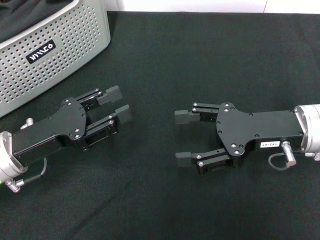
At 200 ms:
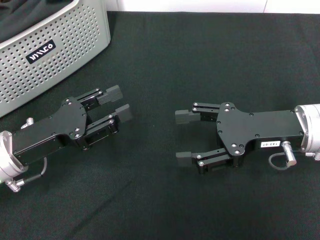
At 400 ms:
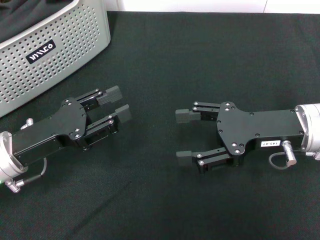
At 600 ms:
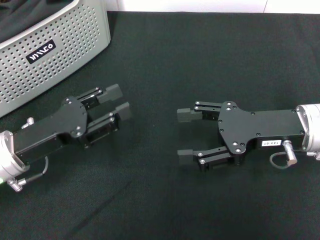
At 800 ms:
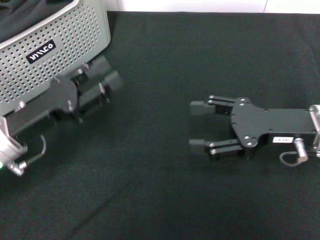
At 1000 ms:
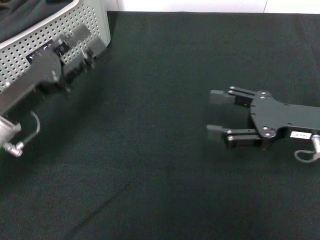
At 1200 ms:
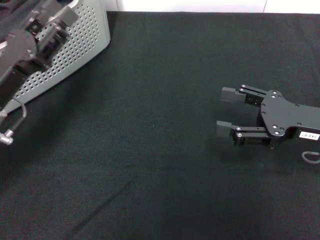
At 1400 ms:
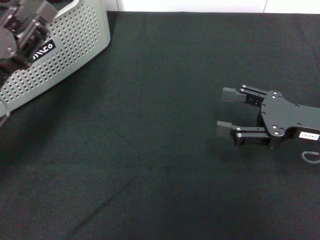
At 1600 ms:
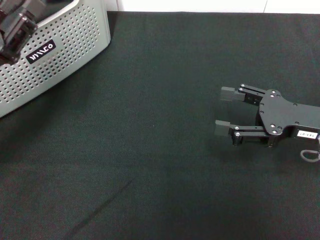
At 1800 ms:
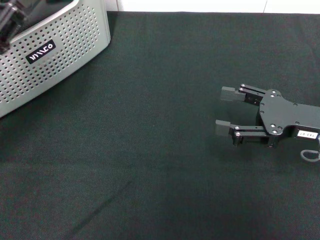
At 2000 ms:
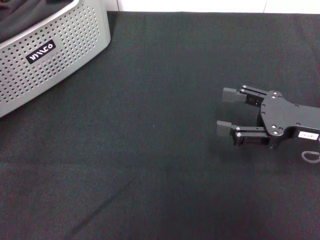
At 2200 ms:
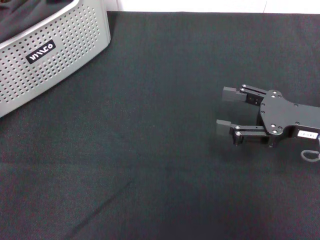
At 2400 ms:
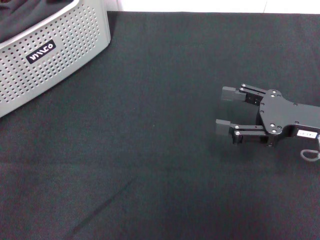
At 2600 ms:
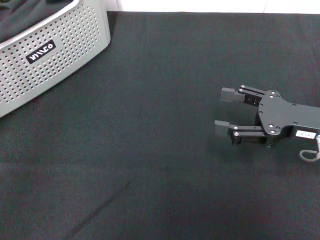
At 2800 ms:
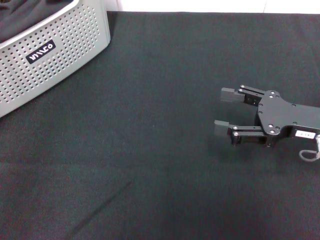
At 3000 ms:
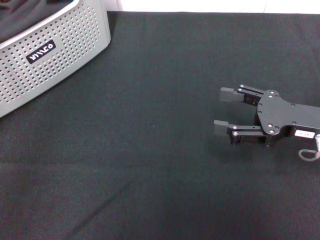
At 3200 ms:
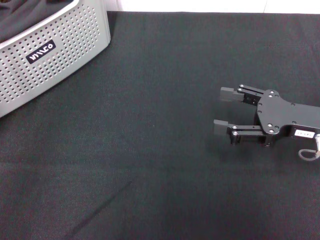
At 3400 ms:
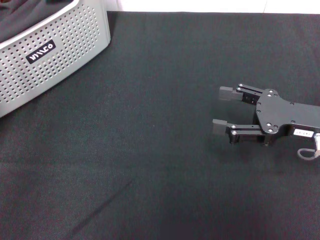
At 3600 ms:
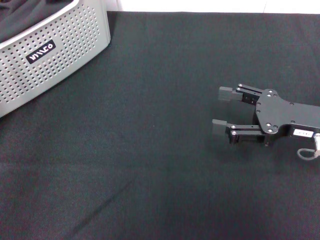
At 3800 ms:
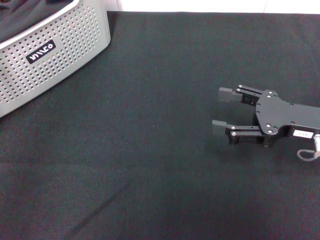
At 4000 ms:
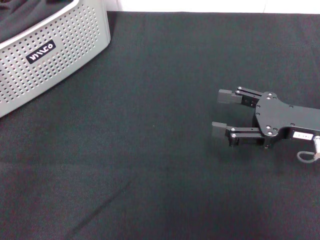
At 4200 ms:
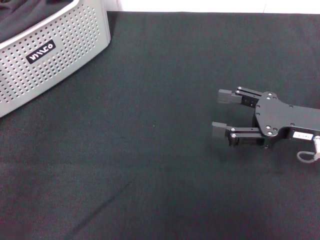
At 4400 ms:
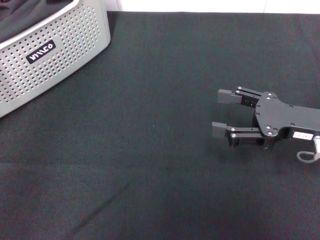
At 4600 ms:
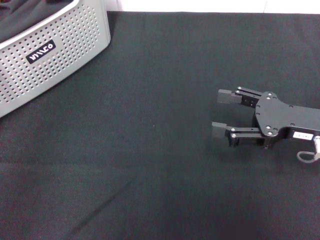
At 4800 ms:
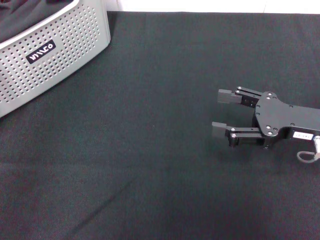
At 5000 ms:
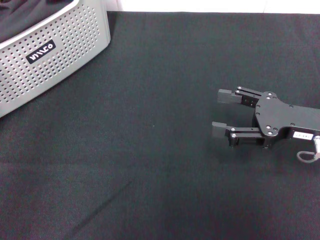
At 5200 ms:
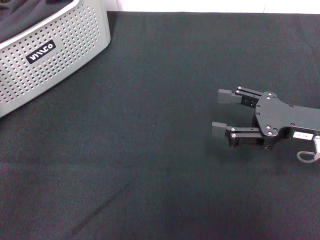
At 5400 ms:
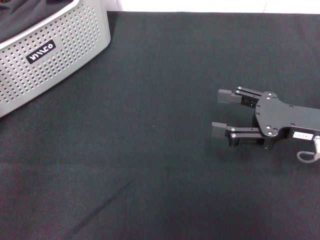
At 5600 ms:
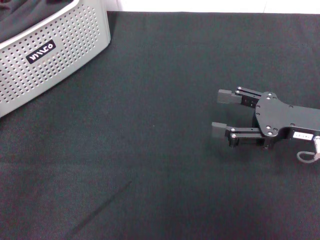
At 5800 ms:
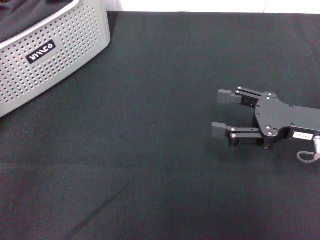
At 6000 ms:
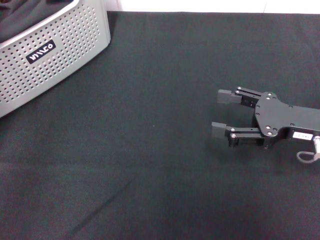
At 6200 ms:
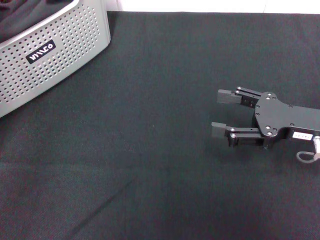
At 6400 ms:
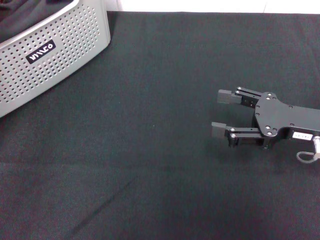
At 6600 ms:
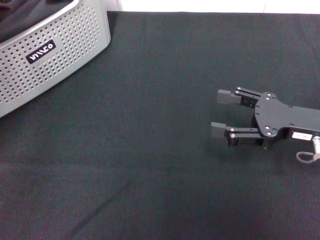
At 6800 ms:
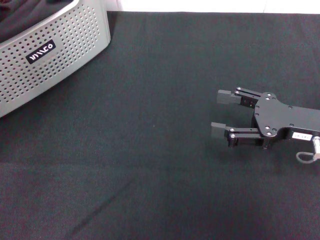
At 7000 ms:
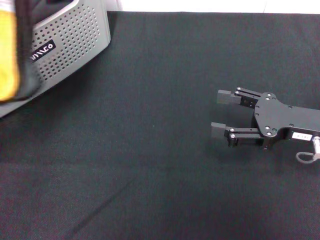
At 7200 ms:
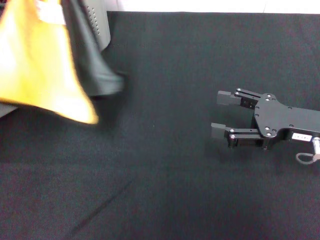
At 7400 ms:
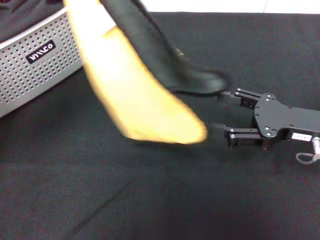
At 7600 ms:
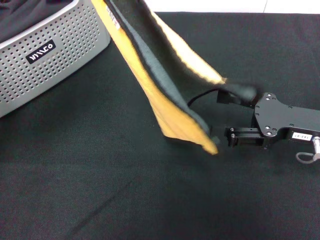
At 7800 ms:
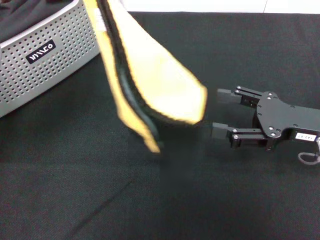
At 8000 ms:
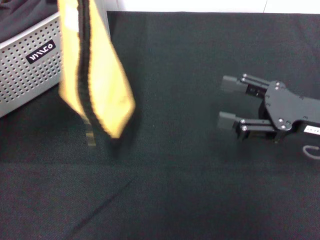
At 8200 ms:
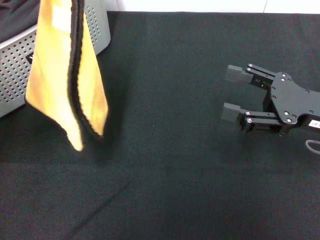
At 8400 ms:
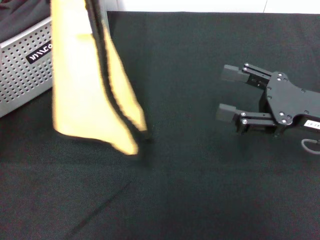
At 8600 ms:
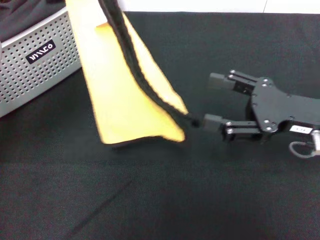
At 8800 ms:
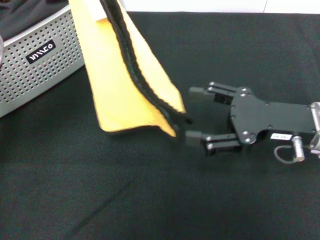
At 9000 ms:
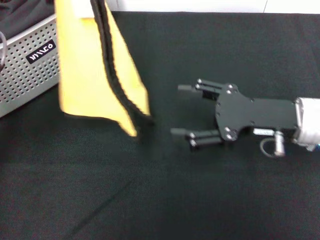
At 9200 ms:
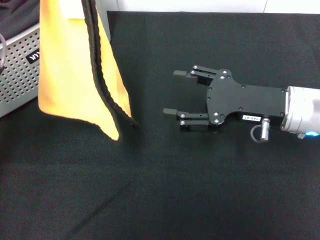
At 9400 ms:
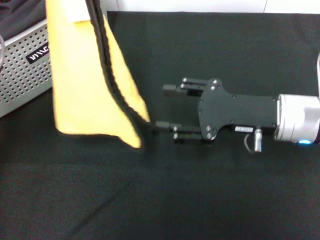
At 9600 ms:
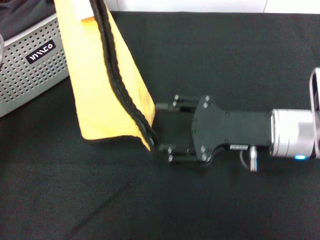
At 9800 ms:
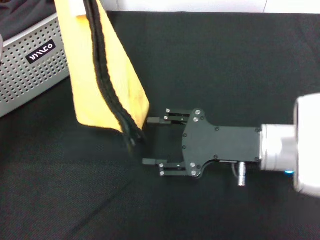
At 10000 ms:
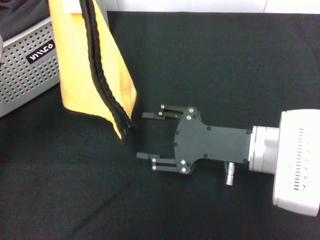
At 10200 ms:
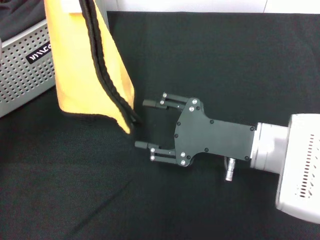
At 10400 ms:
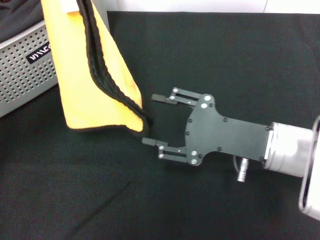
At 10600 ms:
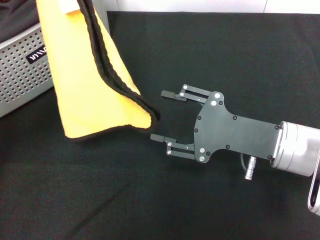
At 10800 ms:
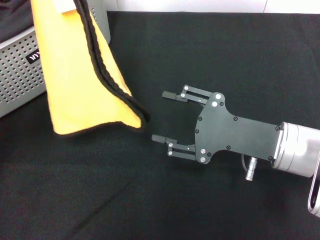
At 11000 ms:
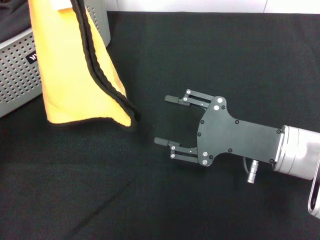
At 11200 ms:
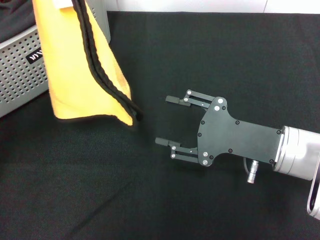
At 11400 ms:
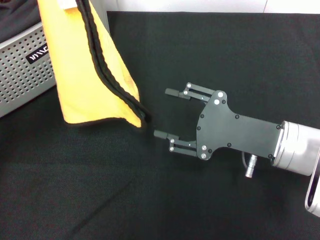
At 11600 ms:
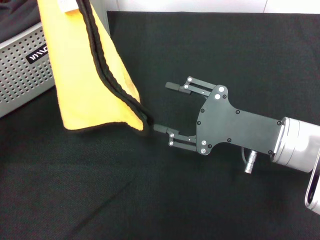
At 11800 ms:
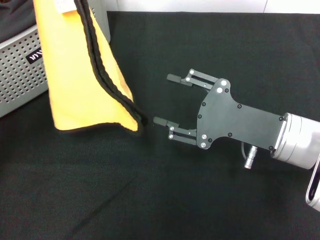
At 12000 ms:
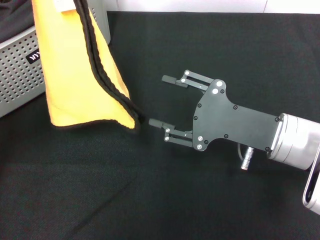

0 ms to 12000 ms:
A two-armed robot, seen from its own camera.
Task of the whole recording: pick up the towel from the storage box and lay it flat on the black tablecloth.
Step, 0 ms to 5400 ms: Pick up a towel with the left gripper.
0 ms to 1600 ms: The right gripper shifts some 5 cm to the right; the left gripper moves approximately 5 cm.
1600 ms to 3000 ms: The left gripper moves to the left, approximately 5 cm.
3000 ms to 4400 ms: The grippers make only small movements.
4400 ms to 6000 ms: The left gripper closes its fingers.
6000 ms to 7600 ms: The left gripper goes approximately 15 cm to the right, upward and forward.
7600 ms to 9000 ms: The right gripper goes approximately 5 cm to the left.
9000 ms to 10400 ms: The right gripper moves some 5 cm.
10400 ms to 12000 ms: The grippers make only small movements.

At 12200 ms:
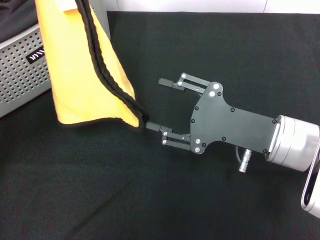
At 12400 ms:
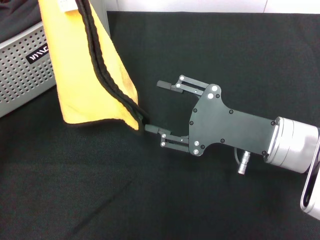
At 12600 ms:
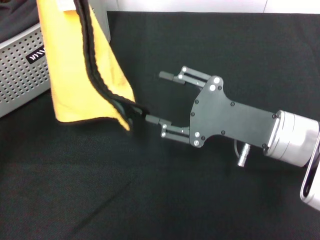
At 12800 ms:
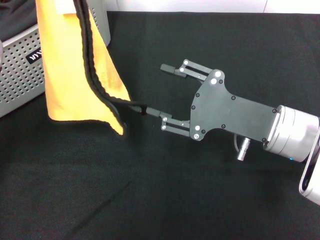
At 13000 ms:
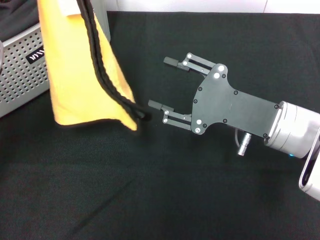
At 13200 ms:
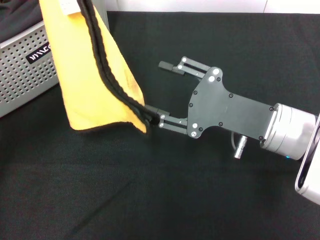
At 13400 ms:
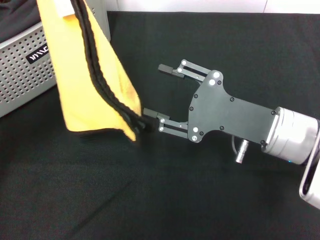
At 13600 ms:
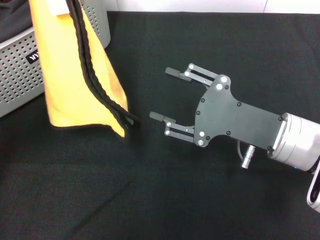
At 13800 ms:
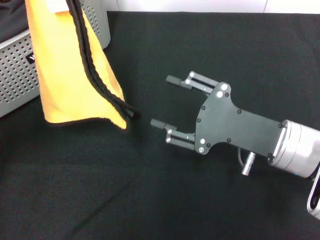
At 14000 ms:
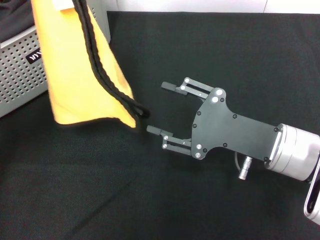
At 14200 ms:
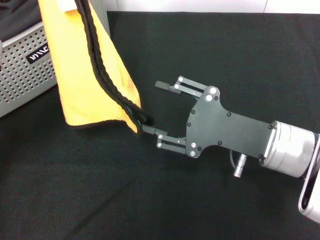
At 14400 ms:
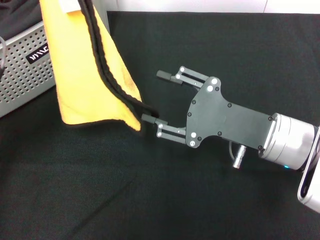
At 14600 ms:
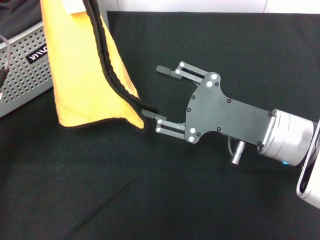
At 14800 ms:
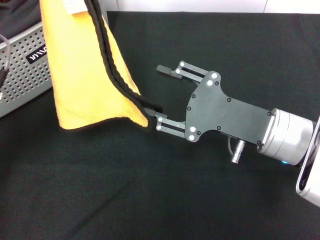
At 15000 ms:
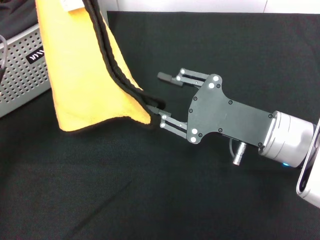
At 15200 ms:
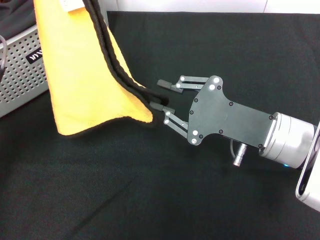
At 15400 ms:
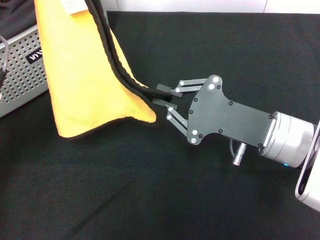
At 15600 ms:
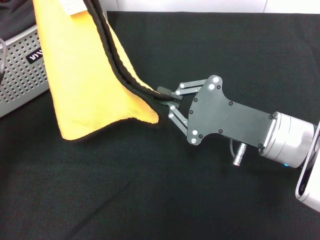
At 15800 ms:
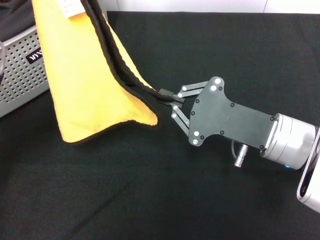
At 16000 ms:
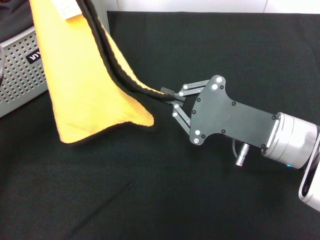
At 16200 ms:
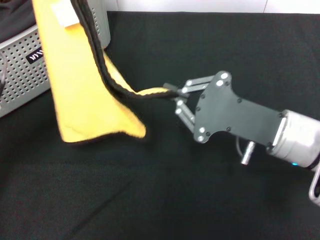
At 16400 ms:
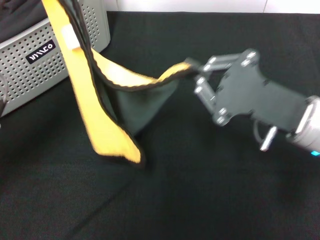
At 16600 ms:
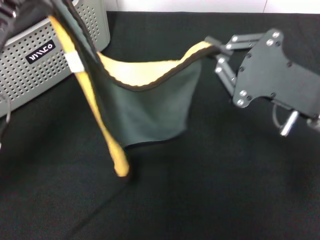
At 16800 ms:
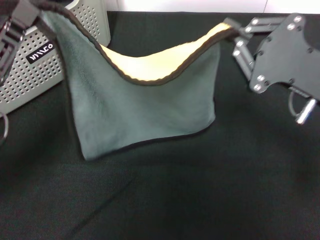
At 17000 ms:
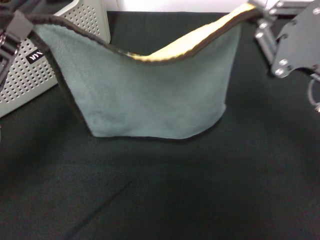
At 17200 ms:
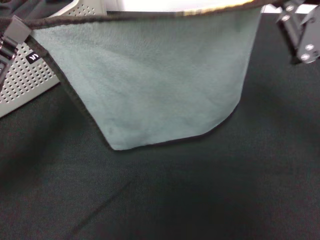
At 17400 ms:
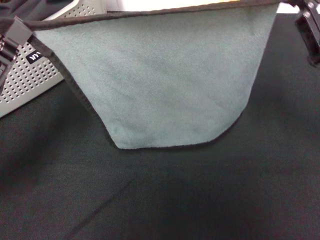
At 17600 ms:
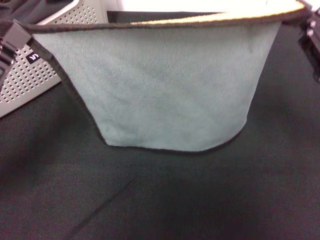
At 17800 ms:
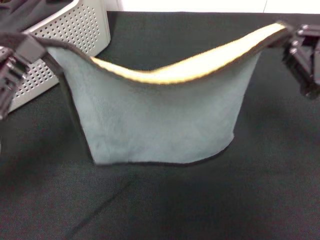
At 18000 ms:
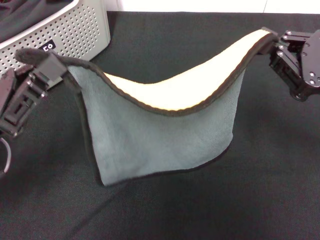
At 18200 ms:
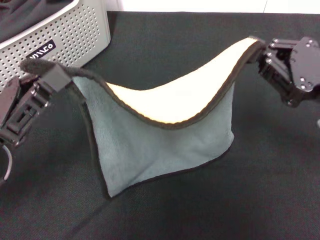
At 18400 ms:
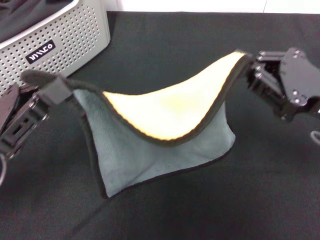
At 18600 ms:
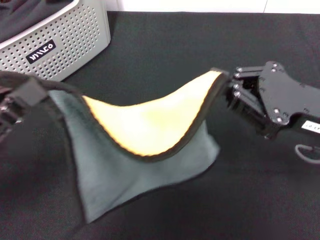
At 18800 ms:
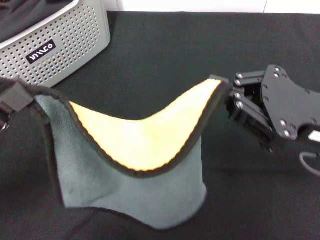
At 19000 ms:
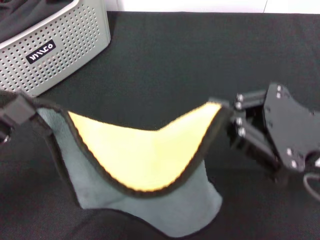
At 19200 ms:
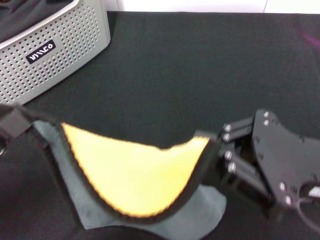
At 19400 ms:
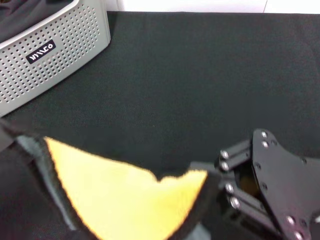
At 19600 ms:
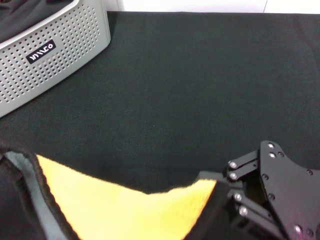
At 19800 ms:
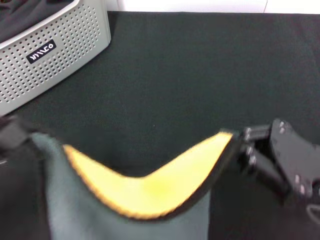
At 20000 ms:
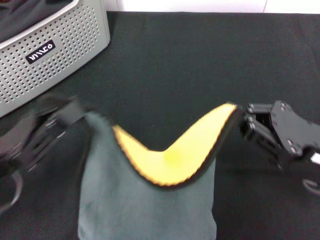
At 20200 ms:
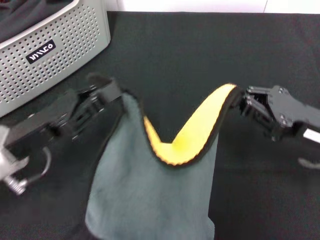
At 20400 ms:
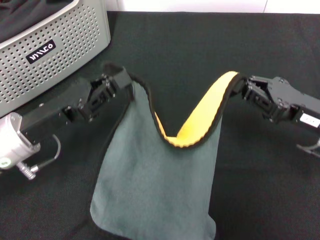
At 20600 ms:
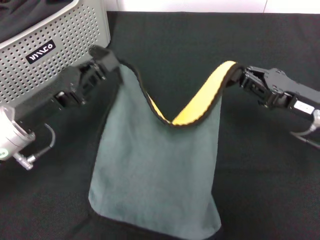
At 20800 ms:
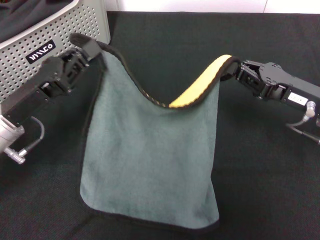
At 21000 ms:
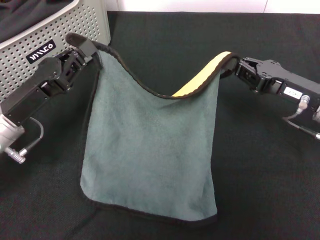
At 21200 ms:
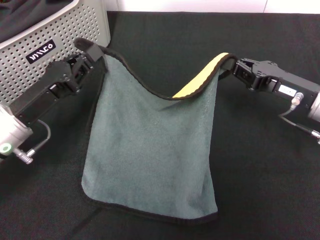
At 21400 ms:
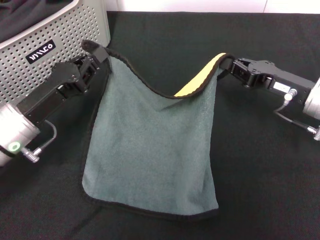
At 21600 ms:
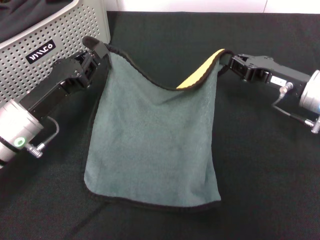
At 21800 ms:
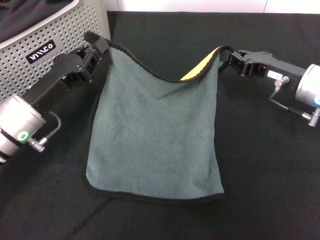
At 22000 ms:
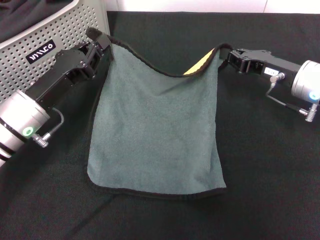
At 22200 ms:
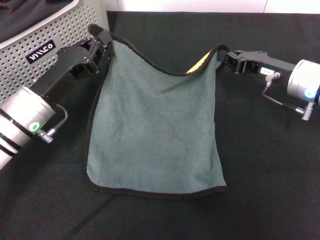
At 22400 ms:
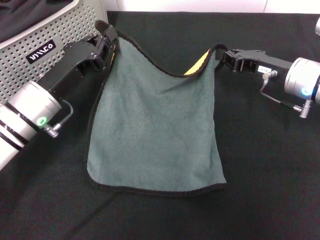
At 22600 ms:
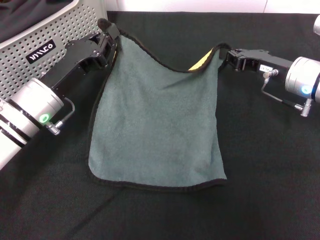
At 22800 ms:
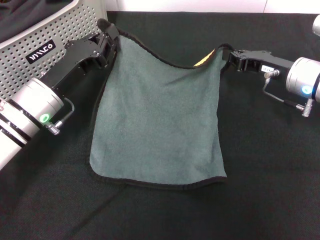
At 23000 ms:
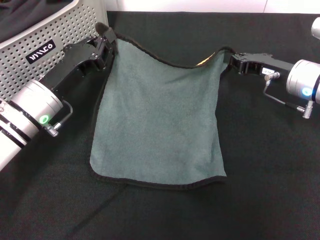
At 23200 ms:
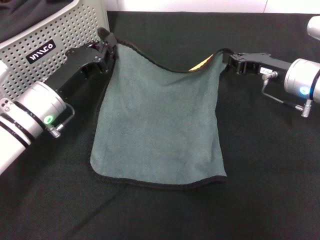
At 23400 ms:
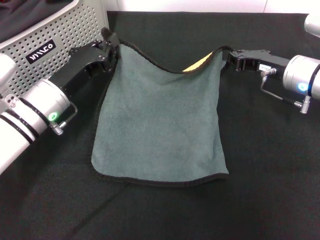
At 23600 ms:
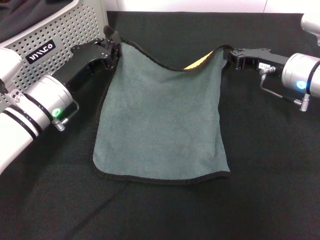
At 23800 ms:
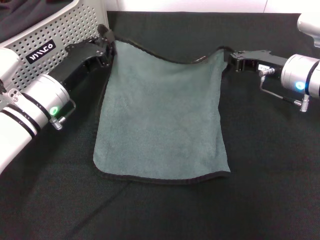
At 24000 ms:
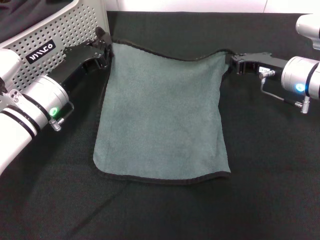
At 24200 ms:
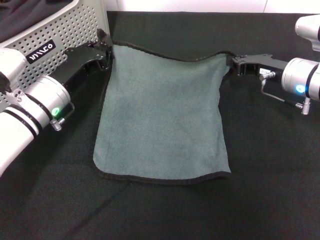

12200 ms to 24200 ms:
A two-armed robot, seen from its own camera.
Task of the whole recording: pick up the towel from the storage box and lay it flat on the black tablecloth.
Step, 12200 ms to 15800 ms: Spread the towel flat with the left gripper.
12200 ms to 13800 ms: Neither gripper changes place.
13800 ms to 15200 ms: The grippers move only a little.
15200 ms to 16600 ms: The left gripper travels downward by approximately 5 cm, while the right gripper ends up approximately 5 cm from where it was, and closes.
18200 ms to 19800 ms: The grippers both shift backward by roughly 5 cm.
19800 ms to 21200 ms: Both grippers move forward, roughly 15 cm.
21200 ms to 22600 ms: The left gripper shifts by about 5 cm, while the right gripper moves forward, roughly 5 cm.
22600 ms to 24200 ms: The grippers stay close to where they were, moving slightly.
